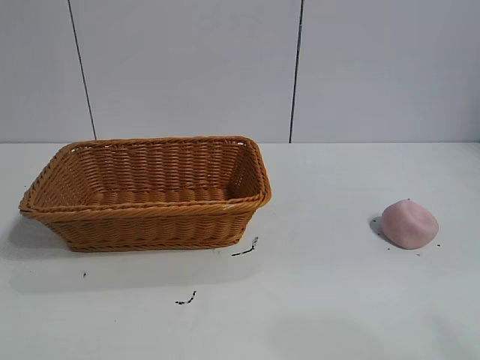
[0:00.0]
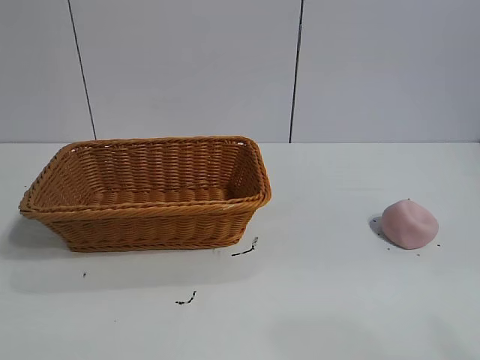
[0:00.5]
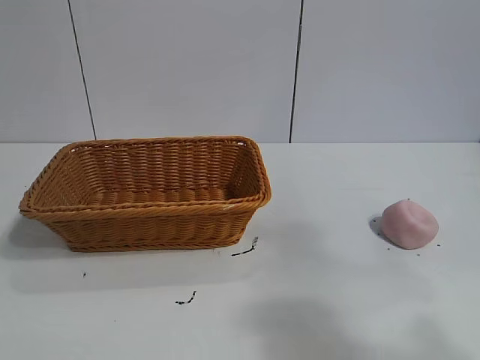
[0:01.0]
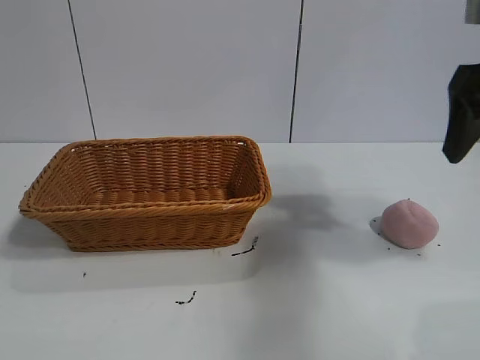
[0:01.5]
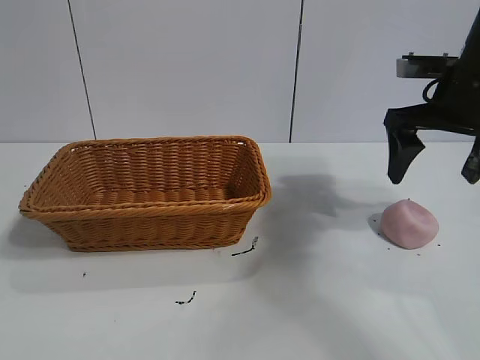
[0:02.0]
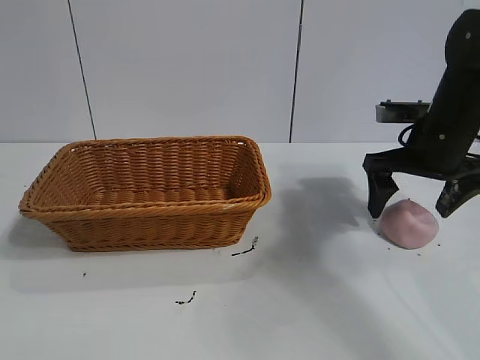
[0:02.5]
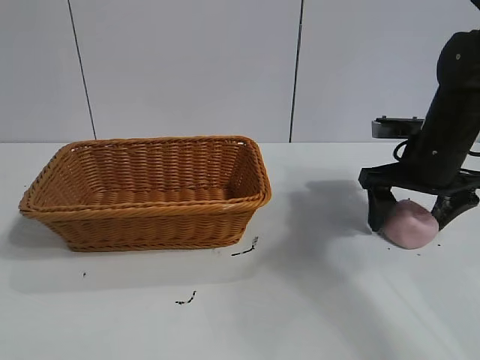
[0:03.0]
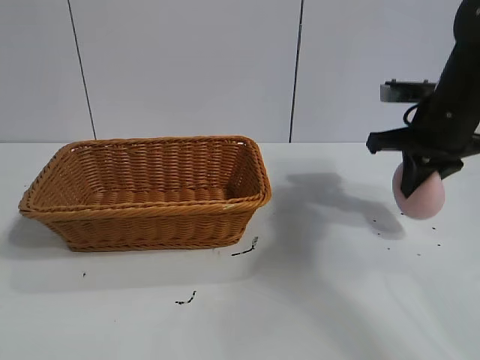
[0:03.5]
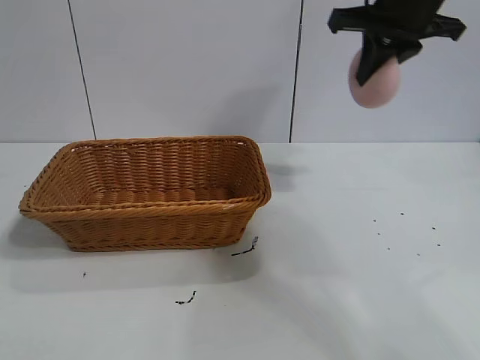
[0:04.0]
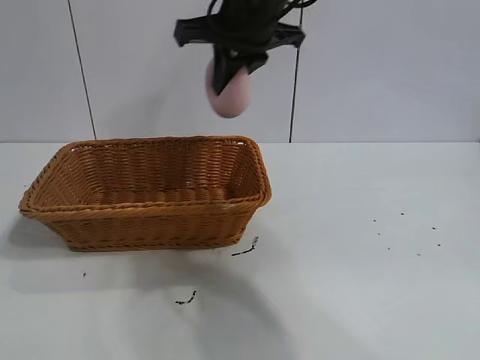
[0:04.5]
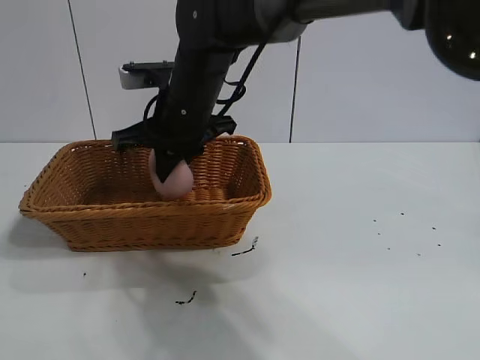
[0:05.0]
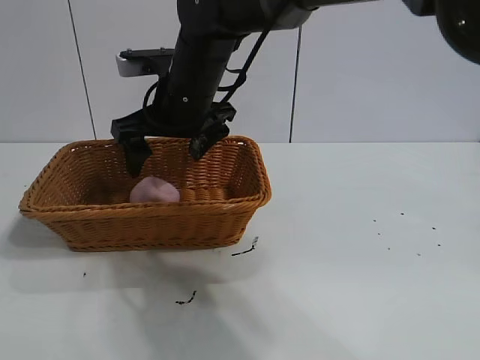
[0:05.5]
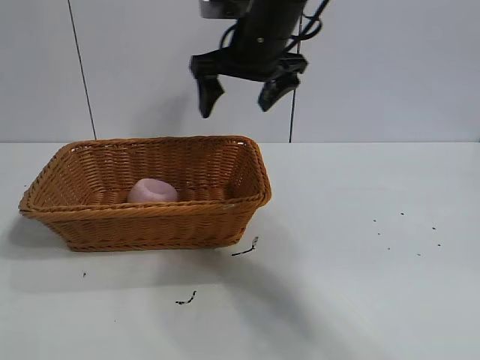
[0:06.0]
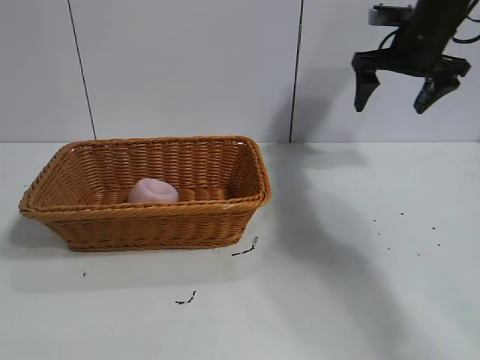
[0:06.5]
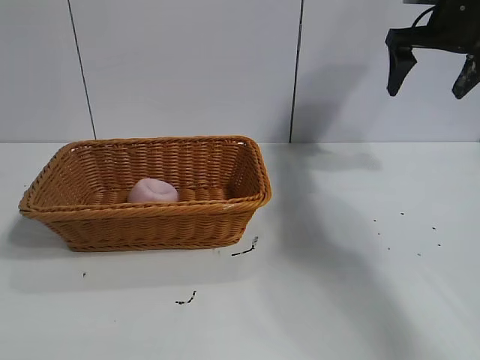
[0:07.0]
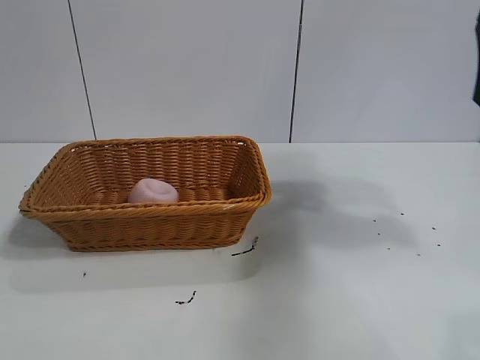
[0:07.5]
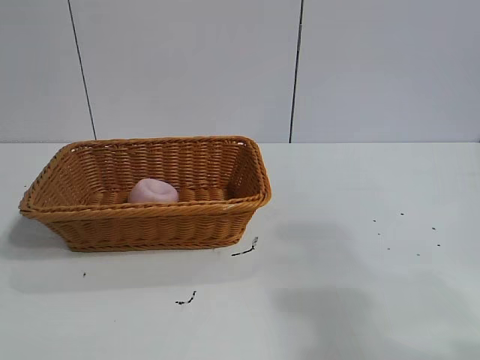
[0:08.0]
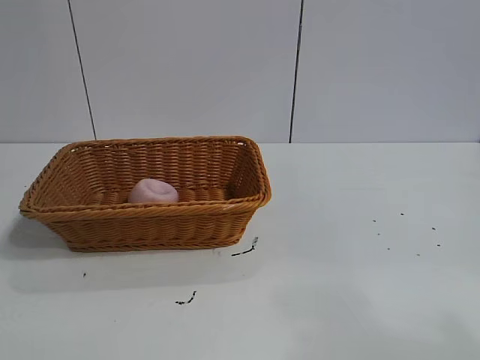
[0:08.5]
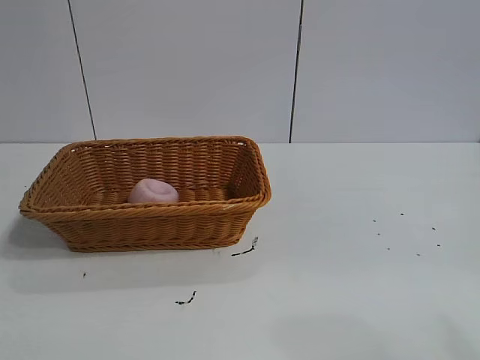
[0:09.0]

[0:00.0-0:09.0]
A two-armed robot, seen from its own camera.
Task of the whole recording: pick up the peach and put it into the basket.
Step, 0:01.0 to 0:03.0: Grasp the peach with right gripper.
Step, 0:03.5 to 0:05.0: Place the peach in the basket with right gripper.
